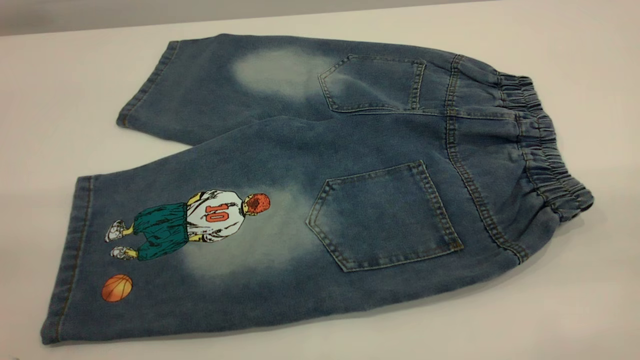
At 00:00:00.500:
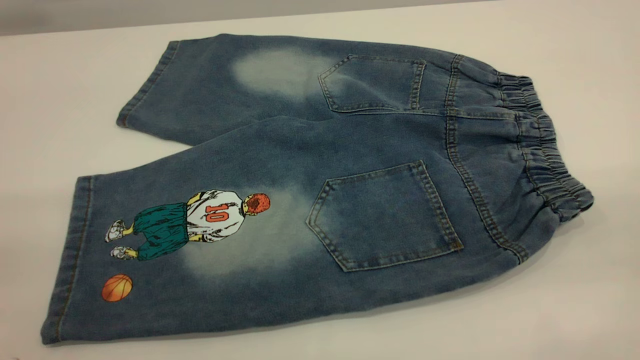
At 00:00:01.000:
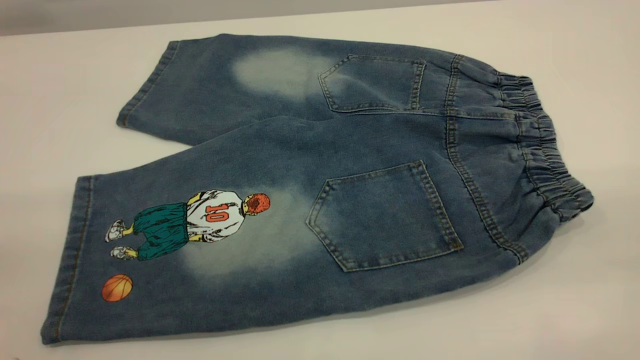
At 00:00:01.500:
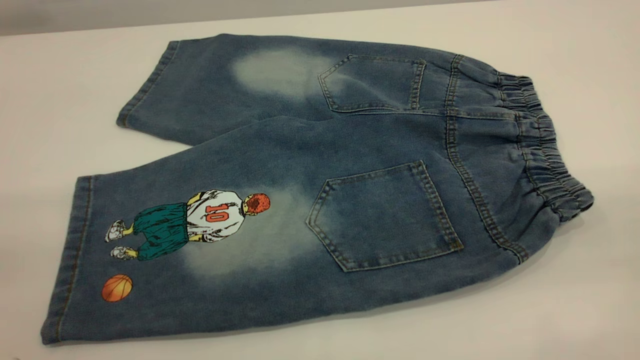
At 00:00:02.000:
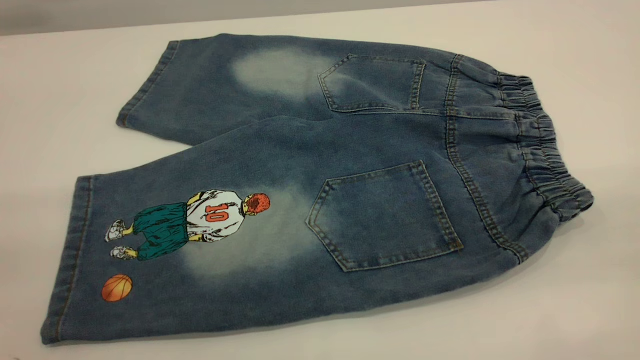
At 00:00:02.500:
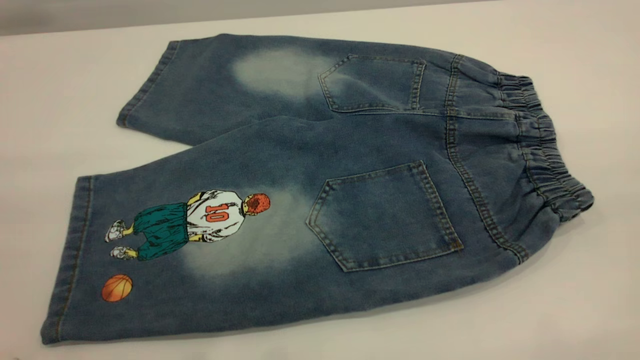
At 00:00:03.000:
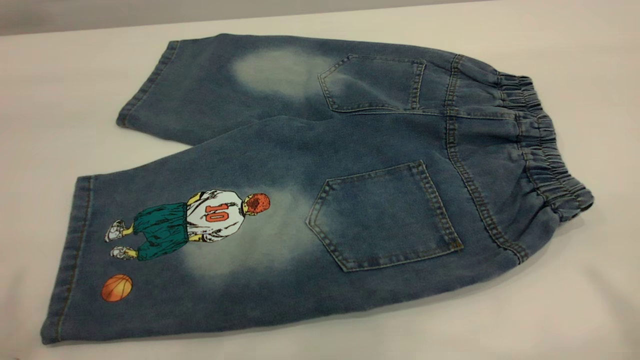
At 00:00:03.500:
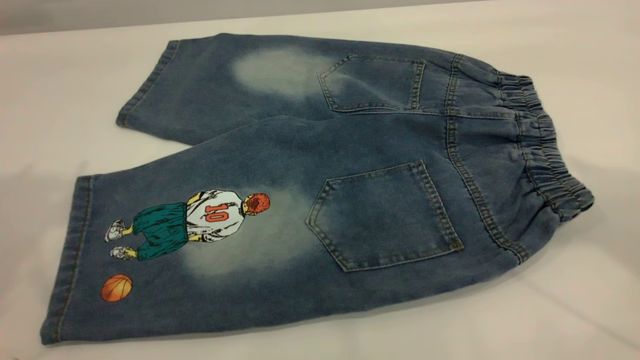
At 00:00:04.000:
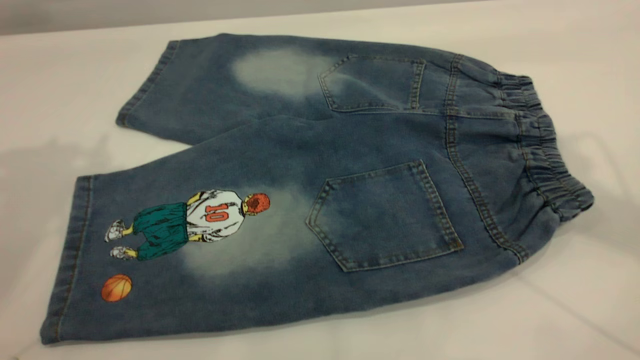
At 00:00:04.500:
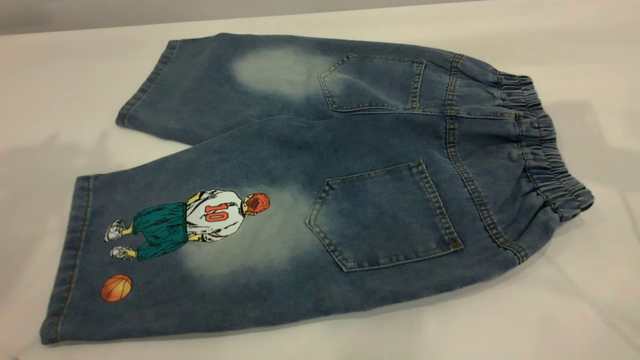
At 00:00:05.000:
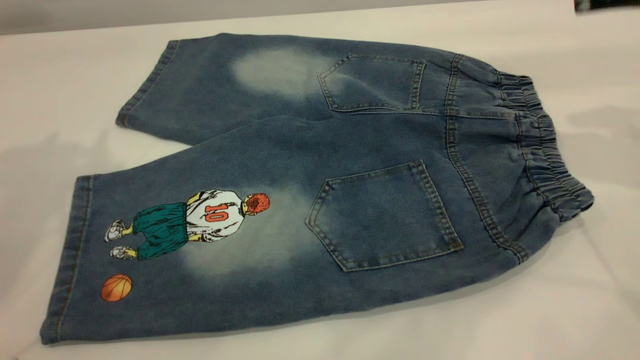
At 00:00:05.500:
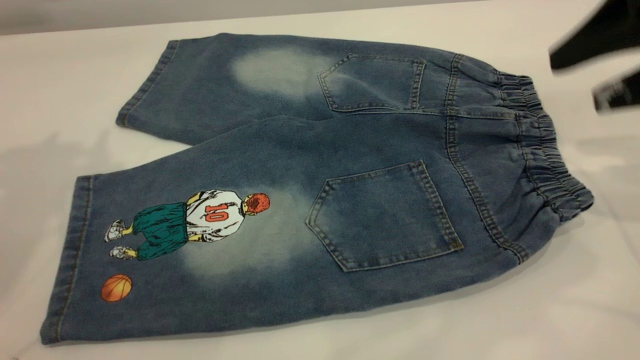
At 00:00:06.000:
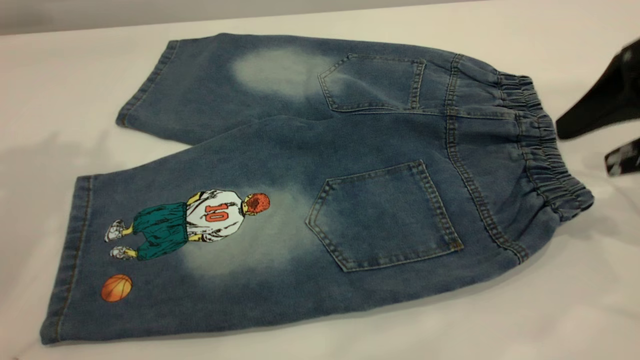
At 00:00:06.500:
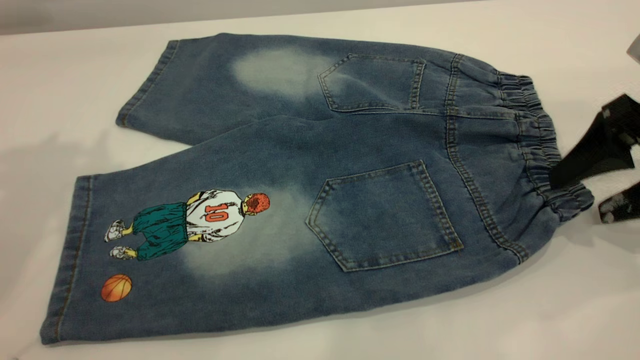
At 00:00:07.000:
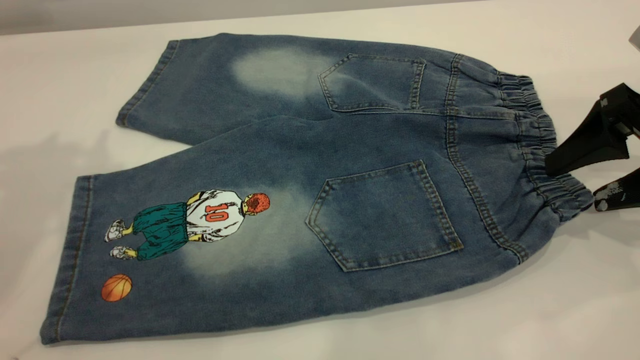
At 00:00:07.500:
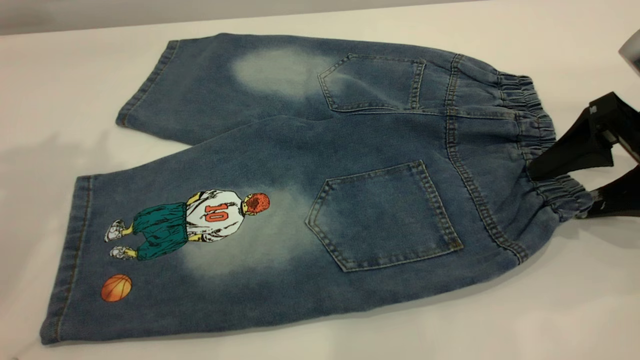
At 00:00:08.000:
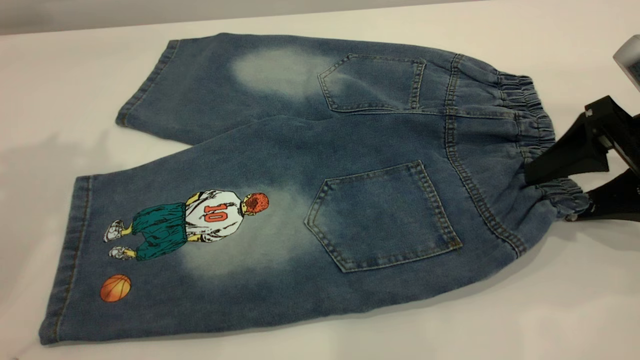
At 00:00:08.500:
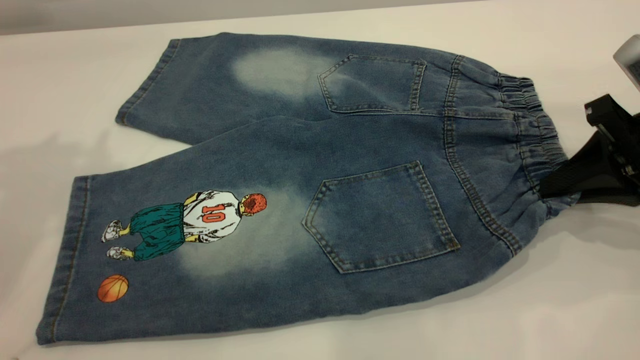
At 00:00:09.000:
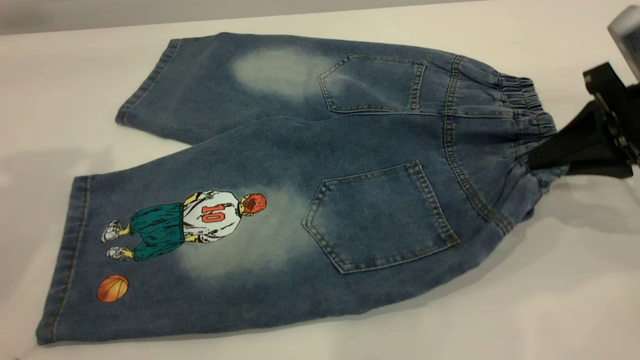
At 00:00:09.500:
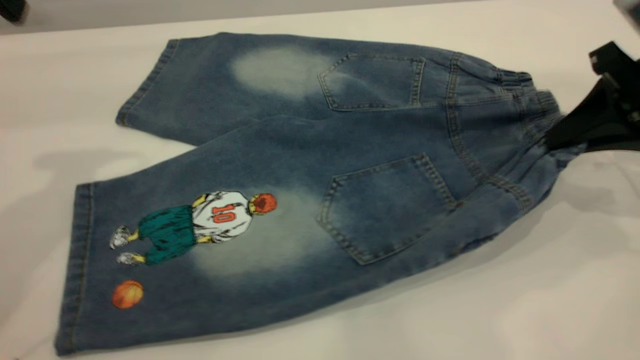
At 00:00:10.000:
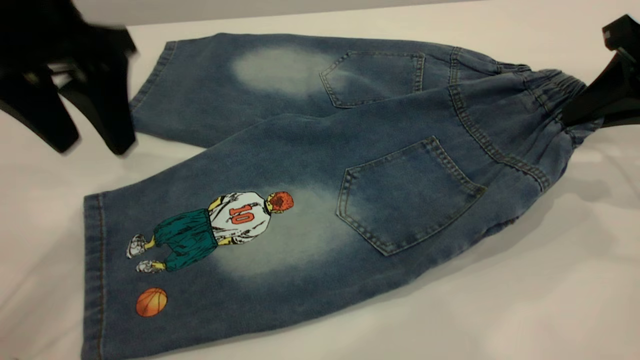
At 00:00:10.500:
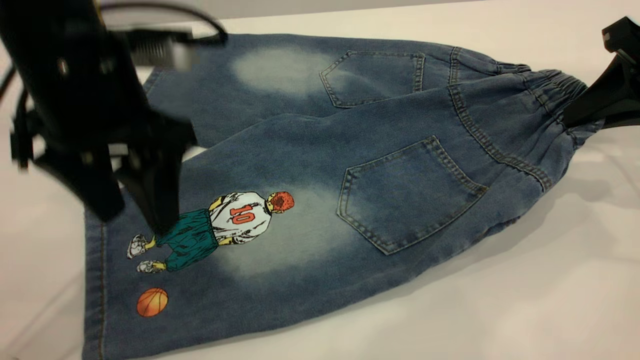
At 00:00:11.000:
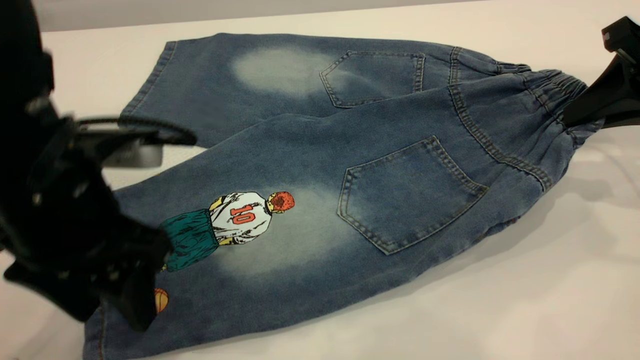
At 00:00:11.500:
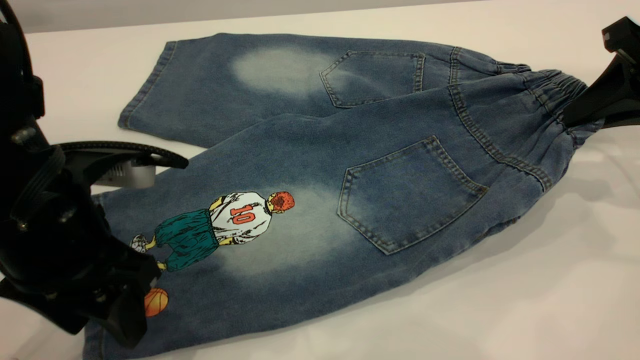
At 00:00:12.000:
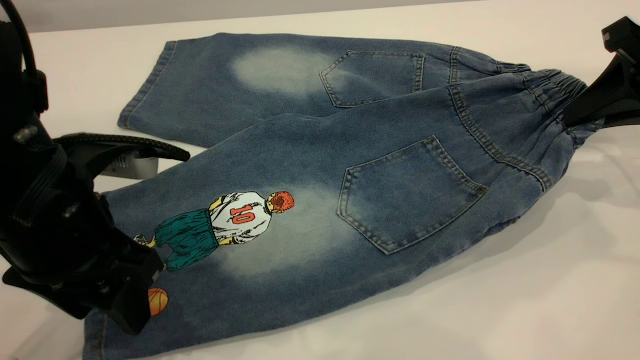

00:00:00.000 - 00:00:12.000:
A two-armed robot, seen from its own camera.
00:00:00.000 - 00:00:02.000: Neither gripper changes place.
00:00:04.000 - 00:00:06.000: The right gripper moves downward and to the right, roughly 25 cm.
00:00:06.000 - 00:00:08.000: The right gripper goes roughly 5 cm downward.
00:00:08.000 - 00:00:10.000: The left gripper moves downward and to the right, about 20 cm. Meanwhile the right gripper heads upward, covering approximately 5 cm, and closes up.
00:00:10.000 - 00:00:12.000: The left gripper moves downward and backward, about 15 cm.

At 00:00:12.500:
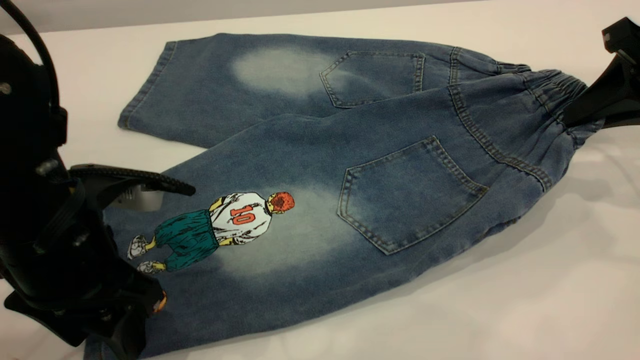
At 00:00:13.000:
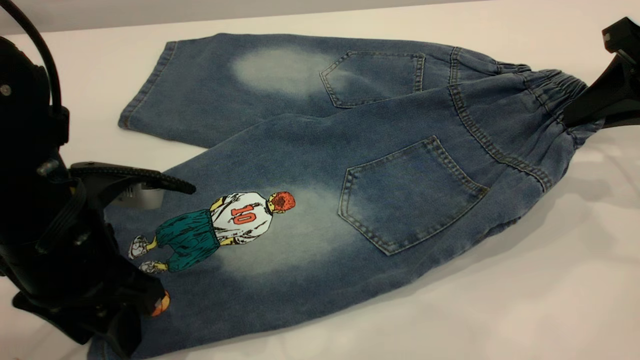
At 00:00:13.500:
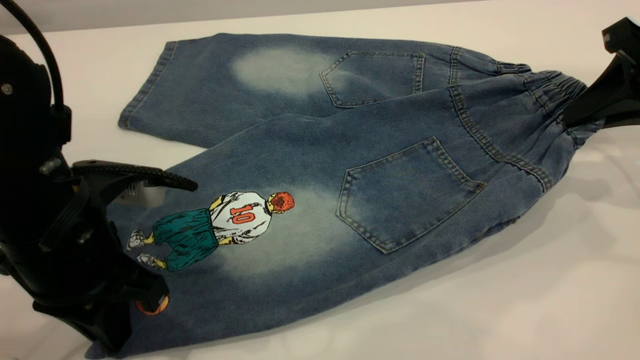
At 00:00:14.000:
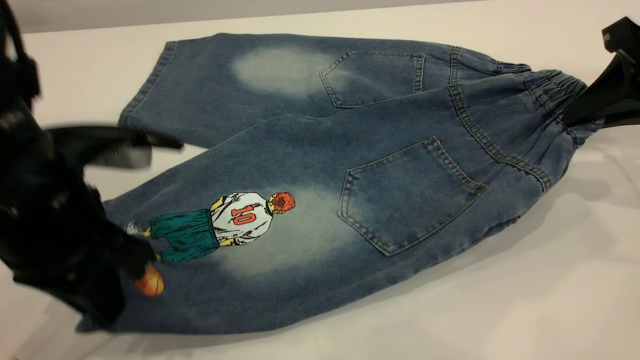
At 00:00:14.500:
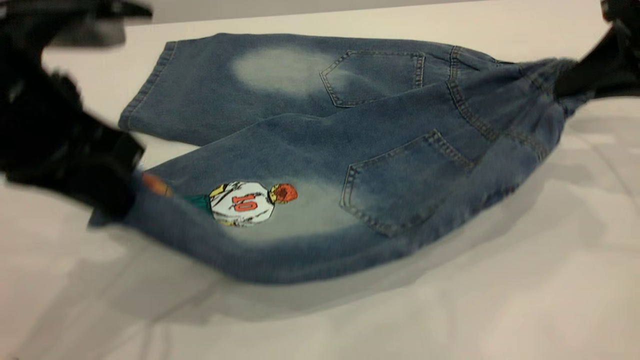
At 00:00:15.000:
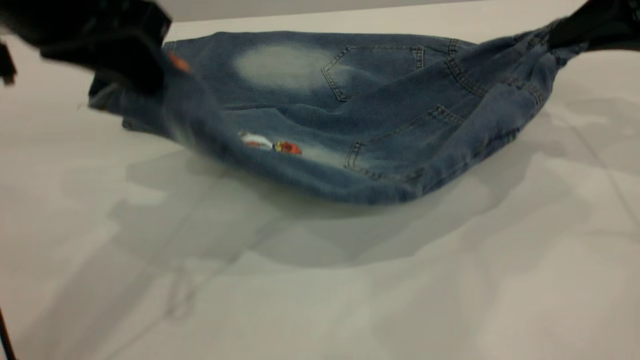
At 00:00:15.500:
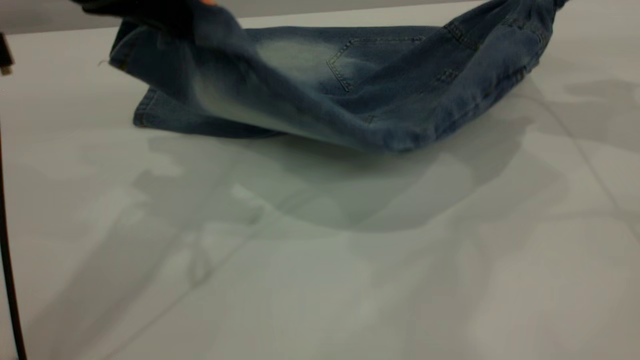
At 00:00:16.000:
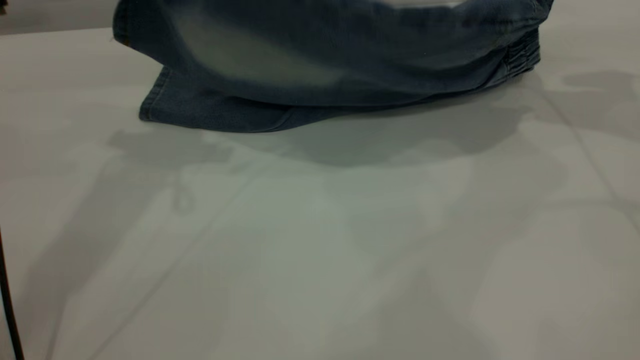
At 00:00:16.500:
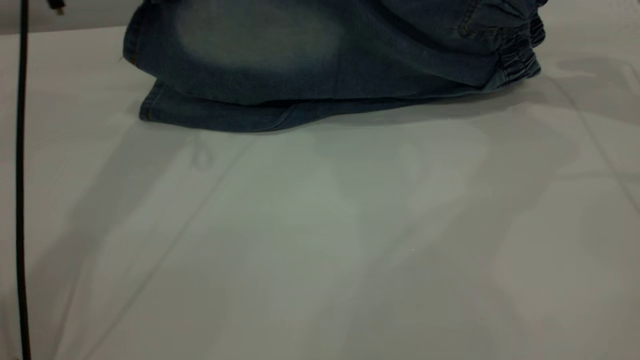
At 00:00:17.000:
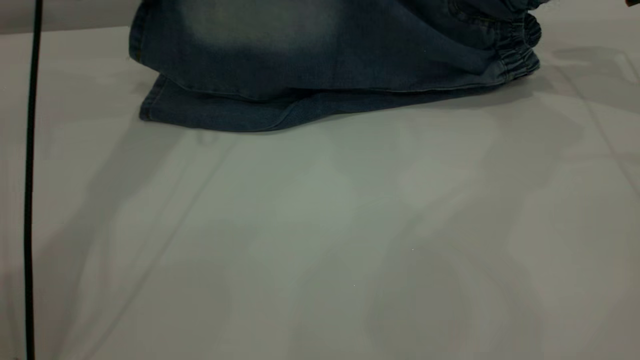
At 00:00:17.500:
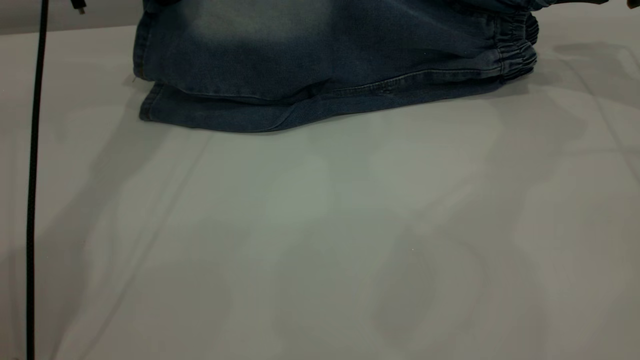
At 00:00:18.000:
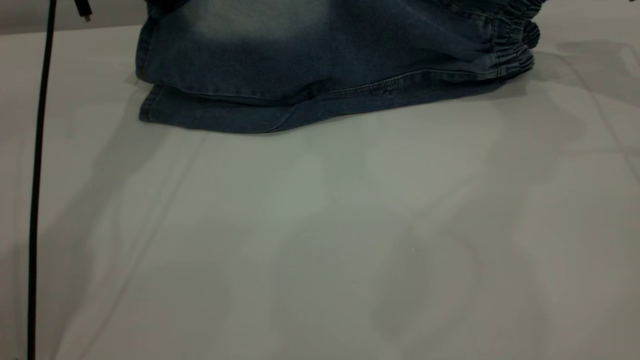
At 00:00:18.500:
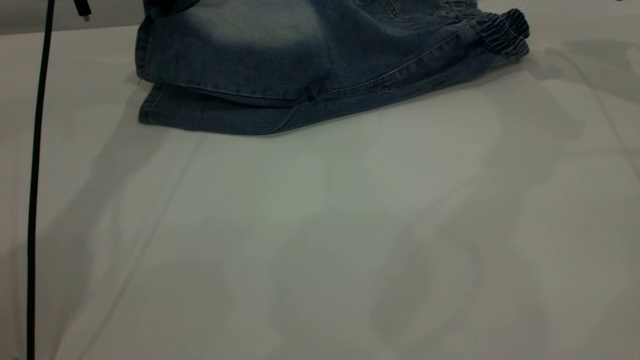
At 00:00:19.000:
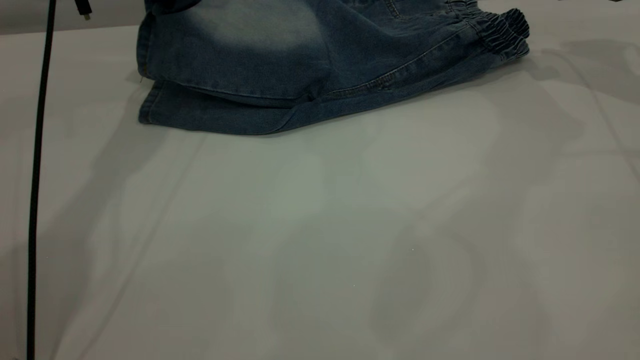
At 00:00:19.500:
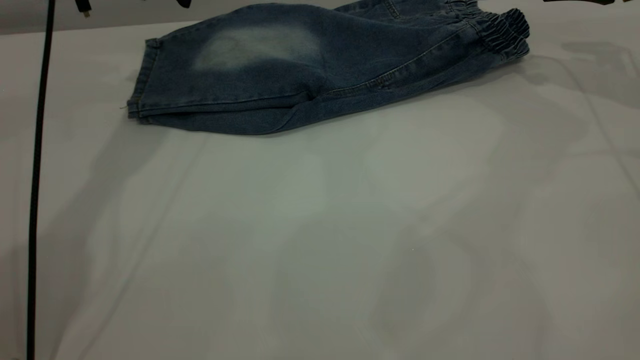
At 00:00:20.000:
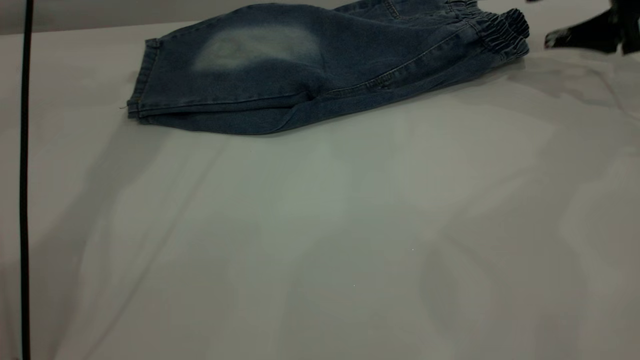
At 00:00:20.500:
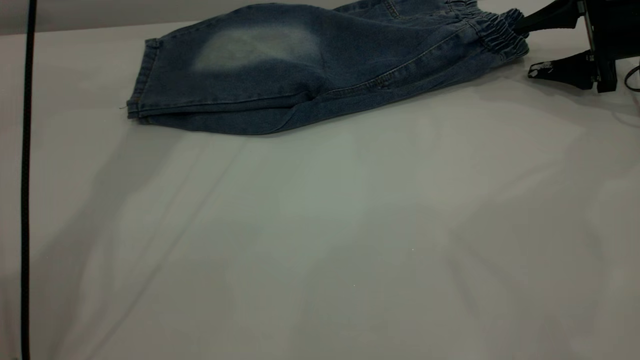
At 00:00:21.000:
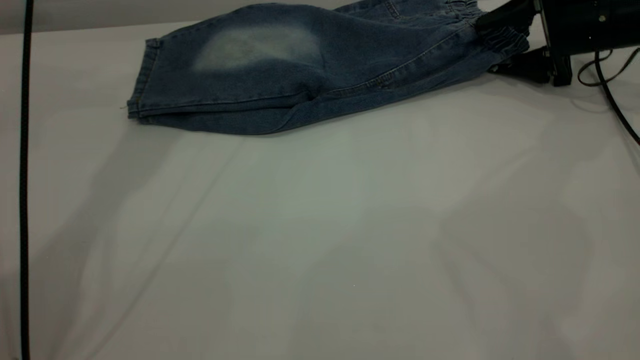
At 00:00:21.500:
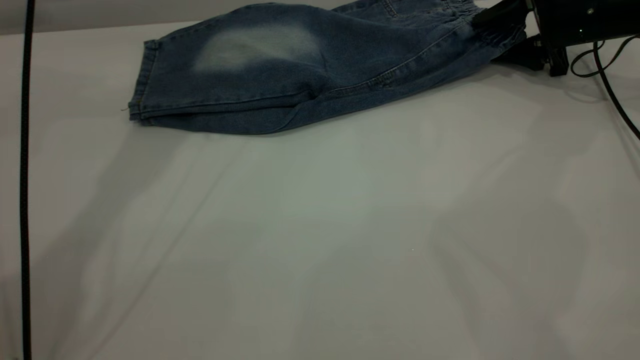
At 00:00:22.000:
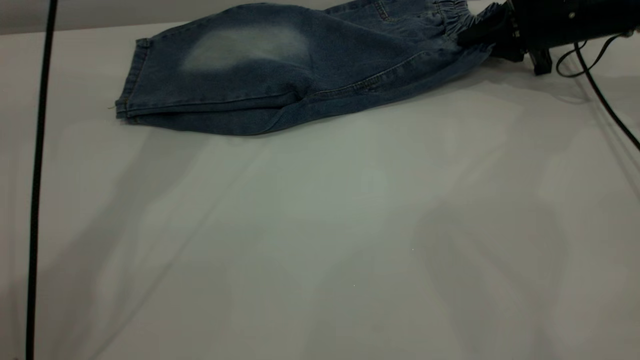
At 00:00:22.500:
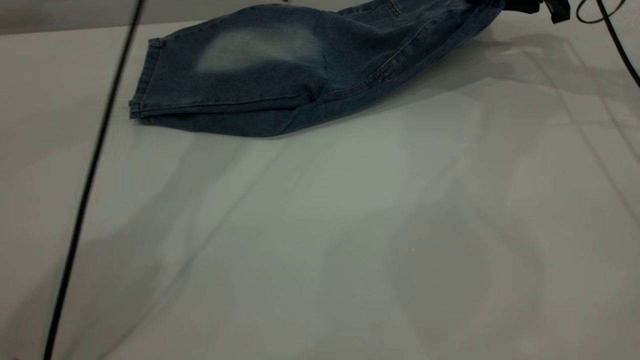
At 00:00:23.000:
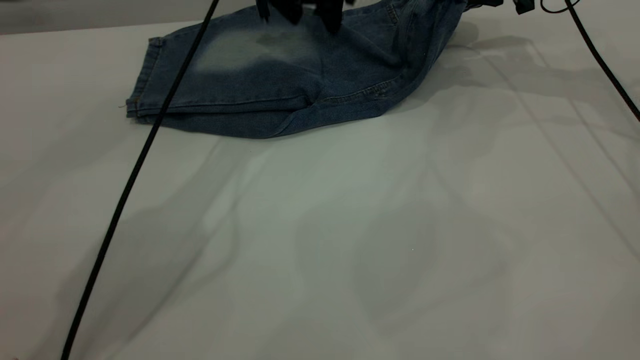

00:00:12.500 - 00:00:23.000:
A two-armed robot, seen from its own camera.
Step, 00:00:12.500 - 00:00:19.000: Fold the bottom of the pants upward.
00:00:12.500 - 00:00:14.500: The left gripper moves upward, some 10 cm, and closes.
00:00:14.500 - 00:00:16.500: The right gripper shifts about 10 cm forward. Meanwhile the left gripper is displaced forward by approximately 20 cm.
00:00:16.500 - 00:00:19.000: The left gripper travels forward by approximately 5 cm. Meanwhile the right gripper opens.
00:00:19.000 - 00:00:21.000: The right gripper heads downward, covering about 10 cm. Meanwhile the left gripper moves upward, roughly 5 cm, and opens its fingers.
00:00:21.000 - 00:00:23.000: The right gripper travels upward and to the left by about 10 cm, and closes. The left gripper is displaced to the right and downward by some 20 cm.
